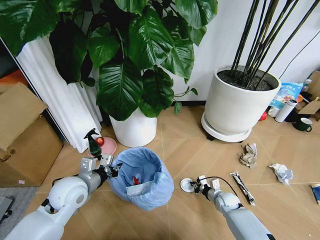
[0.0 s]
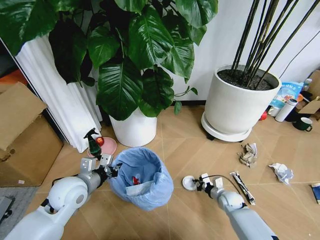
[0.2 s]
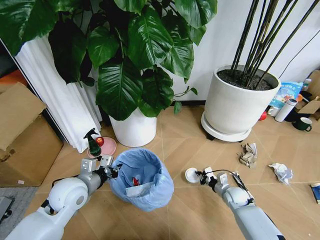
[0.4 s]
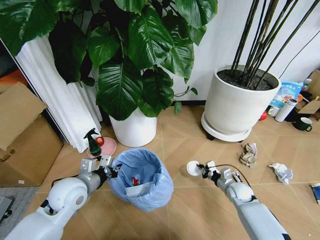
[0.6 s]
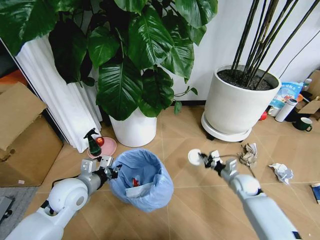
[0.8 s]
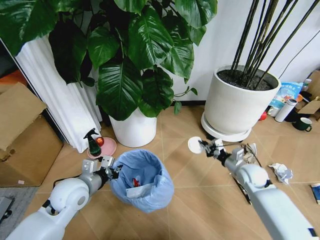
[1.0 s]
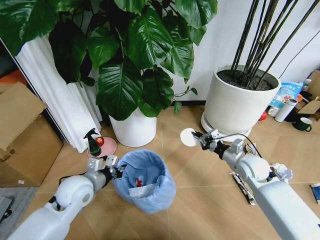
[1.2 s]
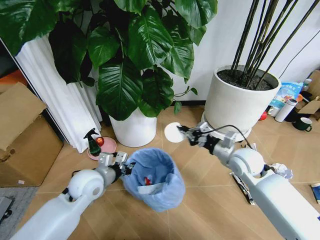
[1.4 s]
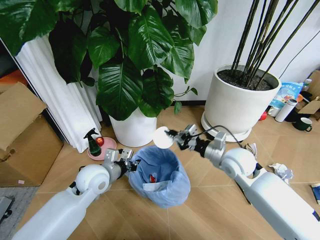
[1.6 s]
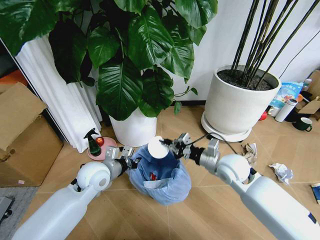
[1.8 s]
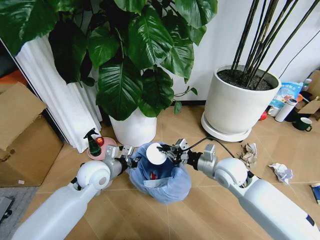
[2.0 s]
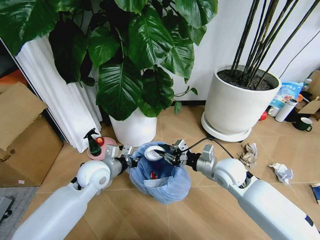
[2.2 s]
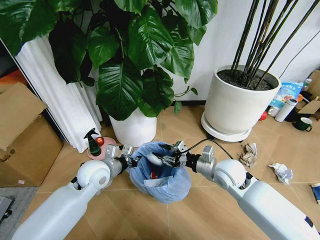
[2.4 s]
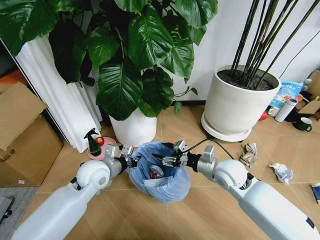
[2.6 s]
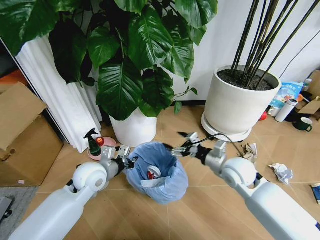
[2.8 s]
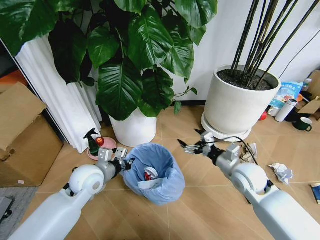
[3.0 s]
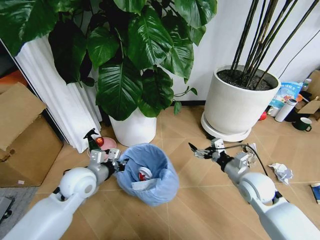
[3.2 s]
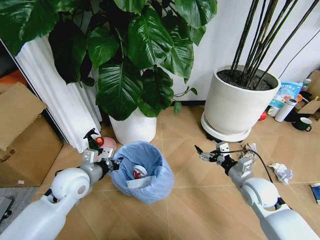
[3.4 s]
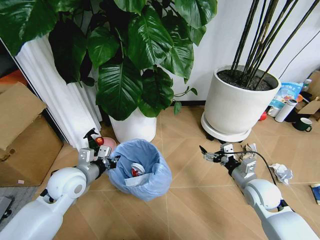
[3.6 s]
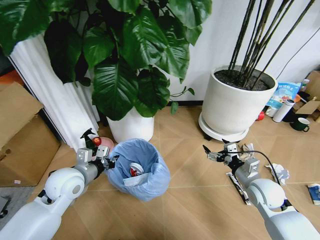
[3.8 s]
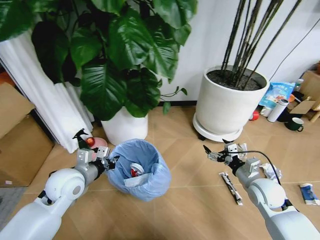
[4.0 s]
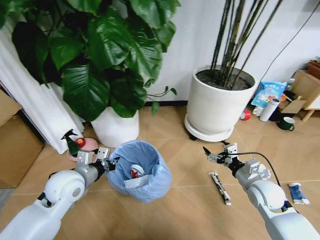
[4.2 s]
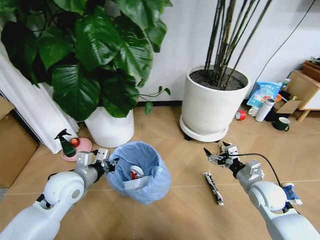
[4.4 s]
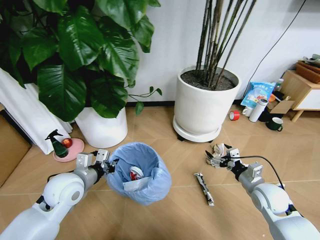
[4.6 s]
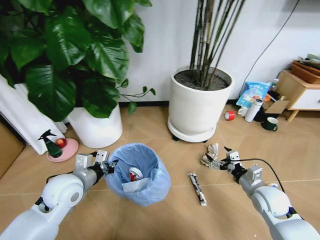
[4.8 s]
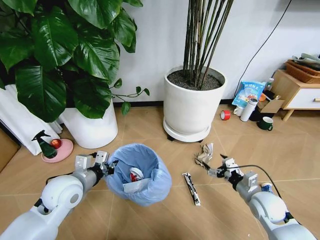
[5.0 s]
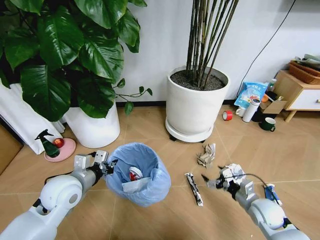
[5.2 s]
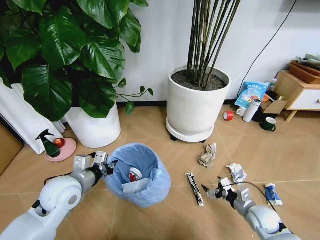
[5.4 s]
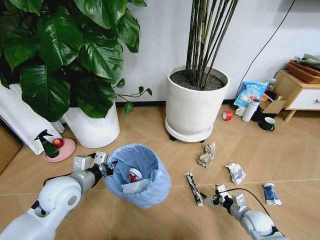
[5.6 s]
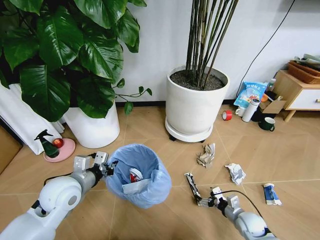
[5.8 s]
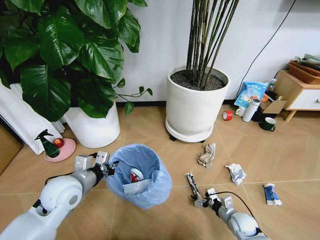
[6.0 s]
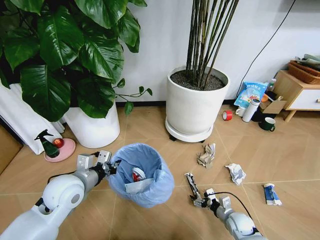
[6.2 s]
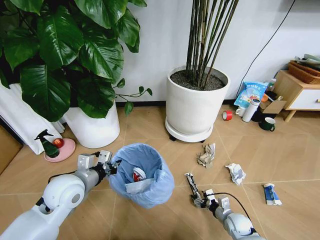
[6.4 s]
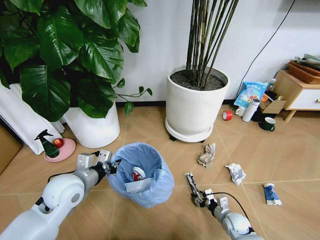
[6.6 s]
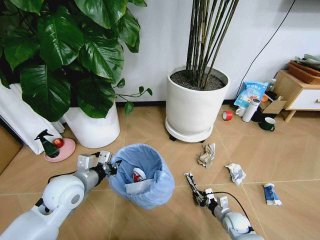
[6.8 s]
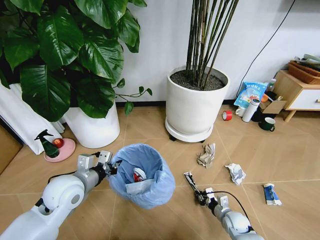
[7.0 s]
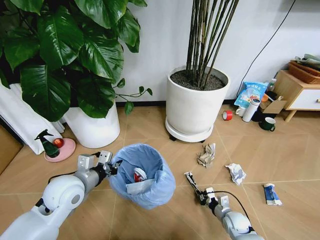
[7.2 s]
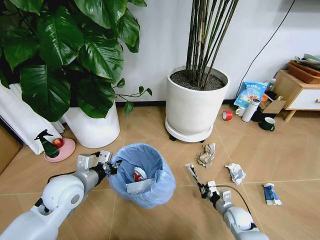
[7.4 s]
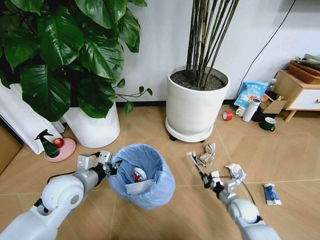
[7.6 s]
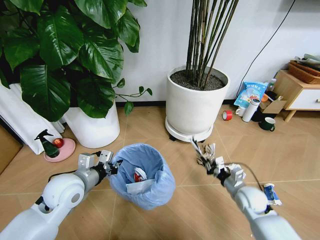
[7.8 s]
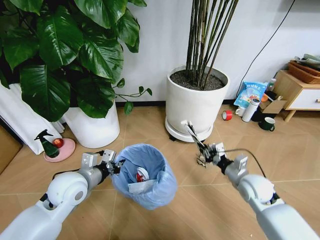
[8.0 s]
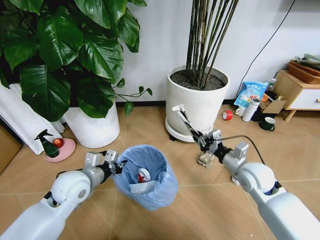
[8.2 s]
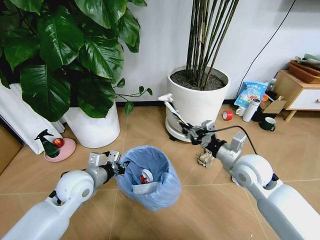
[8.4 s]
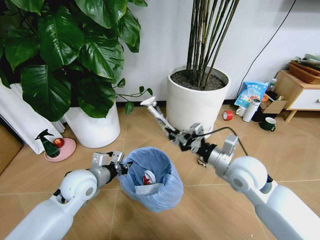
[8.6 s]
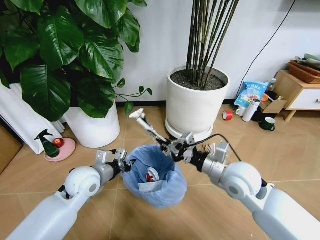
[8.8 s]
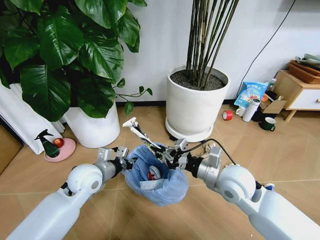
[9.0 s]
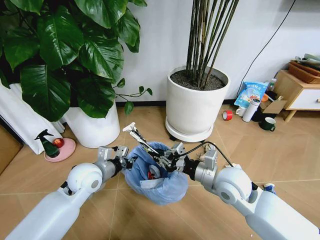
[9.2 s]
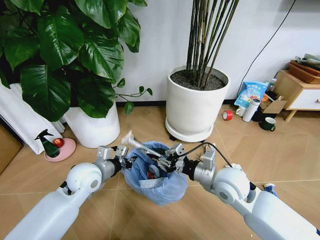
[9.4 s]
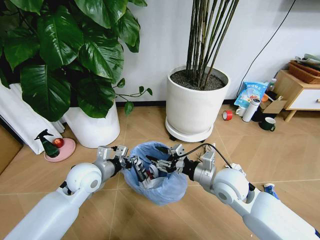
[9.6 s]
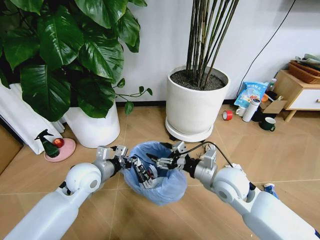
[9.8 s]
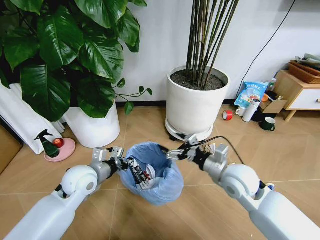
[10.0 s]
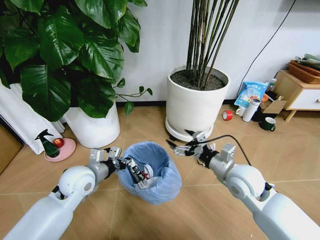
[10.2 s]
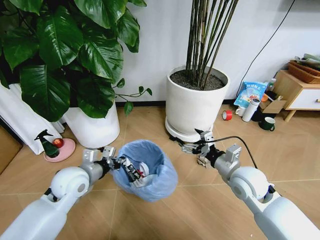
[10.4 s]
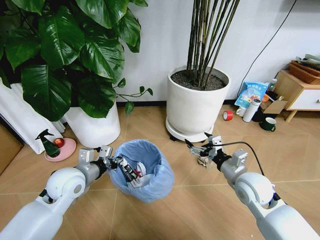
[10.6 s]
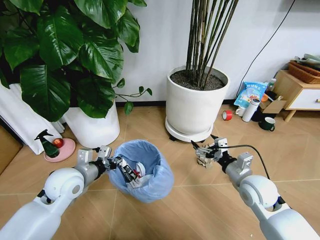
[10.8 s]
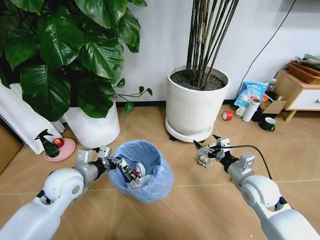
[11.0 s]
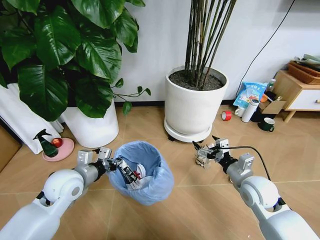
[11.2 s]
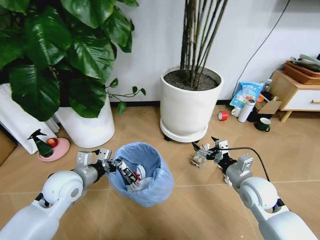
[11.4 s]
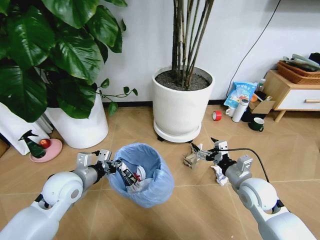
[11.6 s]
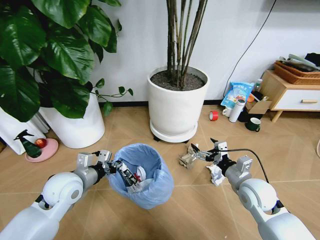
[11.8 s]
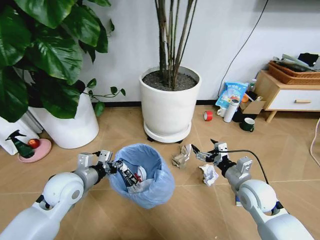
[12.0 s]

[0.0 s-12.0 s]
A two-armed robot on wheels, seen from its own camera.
Task of the whole recording: Pick up the trash bin and place the garbage on the floor into it.
0.0 to 1.6 s: The left gripper heads to the right, covering roughly 5 cm. Meanwhile the right gripper shifts approximately 30 cm upward.
1.6 to 3.0 s: The right gripper moves approximately 5 cm, and opens its fingers.
3.0 to 4.4 s: The right gripper is displaced to the right and downward by about 10 cm. The left gripper shifts by approximately 5 cm.
4.4 to 6.0 s: The right gripper travels downward by some 20 cm.
6.0 to 7.6 s: The right gripper moves about 5 cm, and closes.
7.6 to 9.0 s: The left gripper changes place by roughly 5 cm; the right gripper travels upward and to the left by approximately 25 cm.
9.0 to 10.4 s: The right gripper moves to the right, some 5 cm, and opens up.
10.4 to 12.0 s: The right gripper changes place by approximately 5 cm.

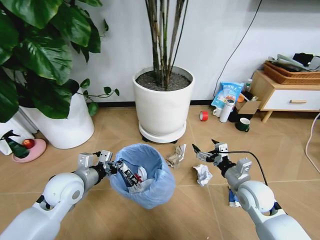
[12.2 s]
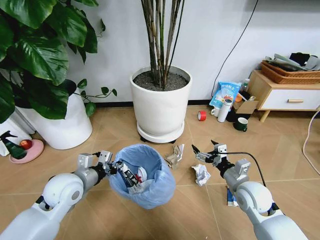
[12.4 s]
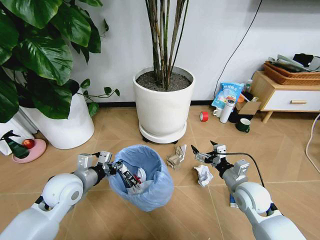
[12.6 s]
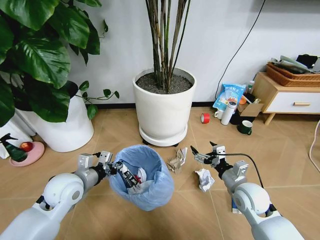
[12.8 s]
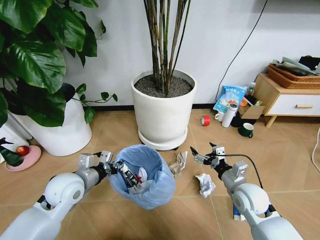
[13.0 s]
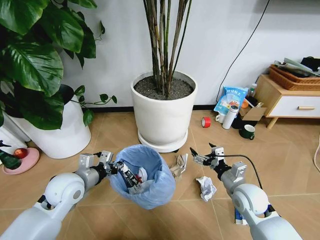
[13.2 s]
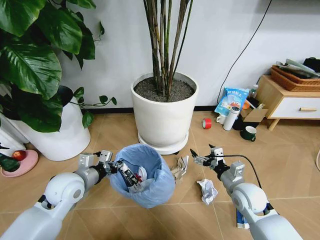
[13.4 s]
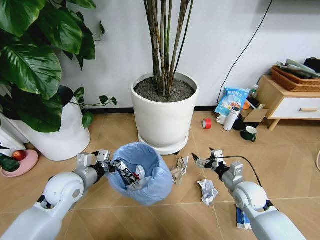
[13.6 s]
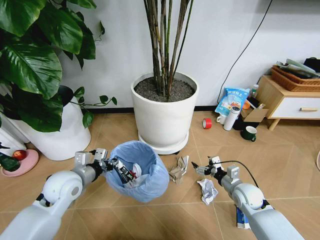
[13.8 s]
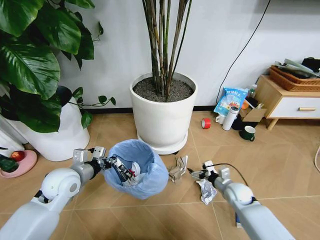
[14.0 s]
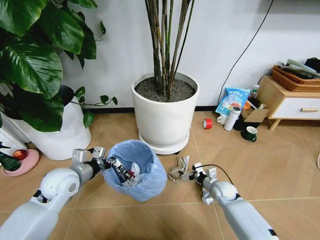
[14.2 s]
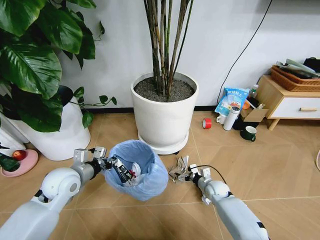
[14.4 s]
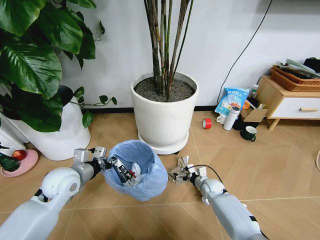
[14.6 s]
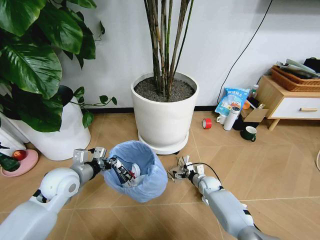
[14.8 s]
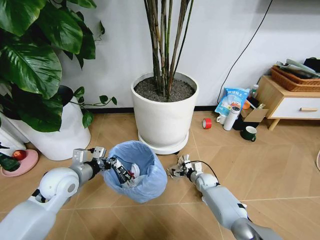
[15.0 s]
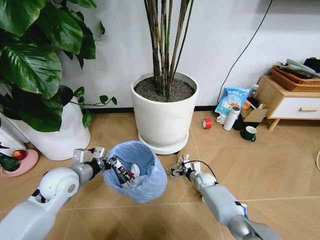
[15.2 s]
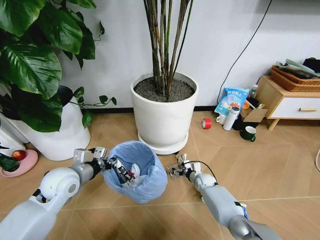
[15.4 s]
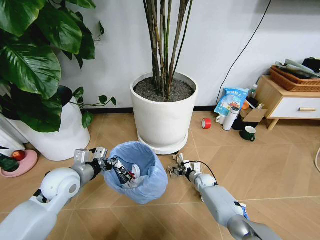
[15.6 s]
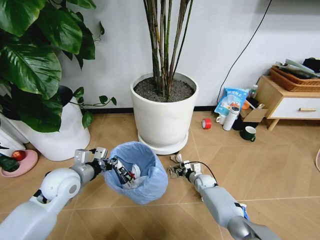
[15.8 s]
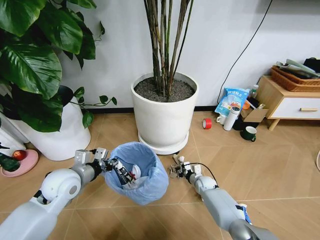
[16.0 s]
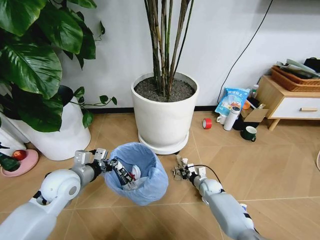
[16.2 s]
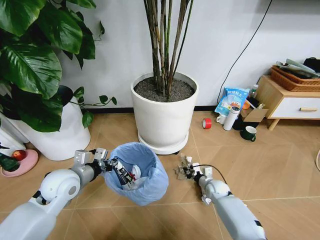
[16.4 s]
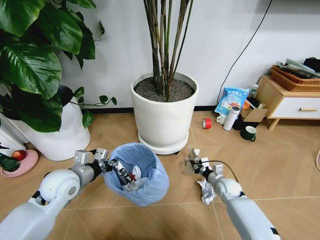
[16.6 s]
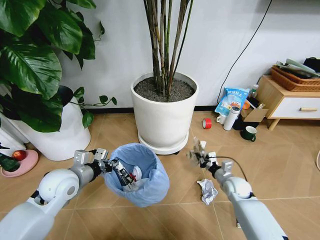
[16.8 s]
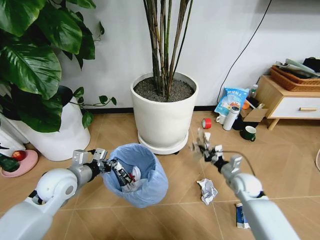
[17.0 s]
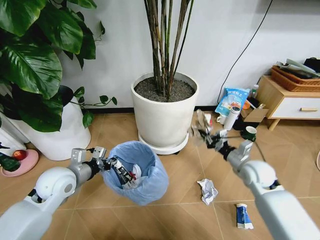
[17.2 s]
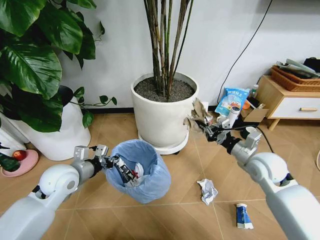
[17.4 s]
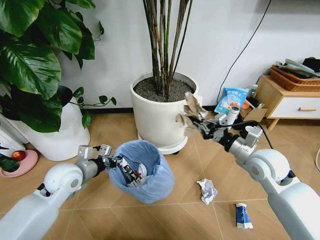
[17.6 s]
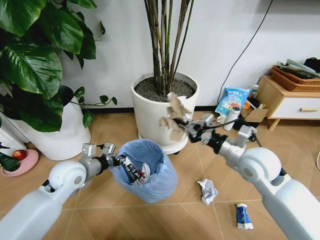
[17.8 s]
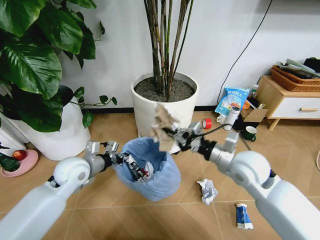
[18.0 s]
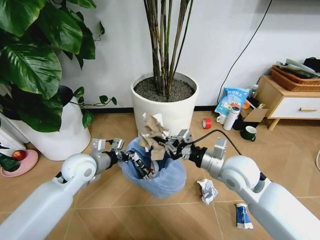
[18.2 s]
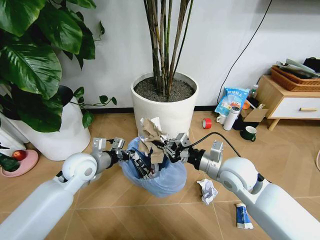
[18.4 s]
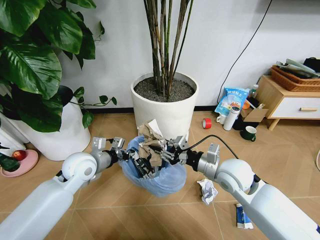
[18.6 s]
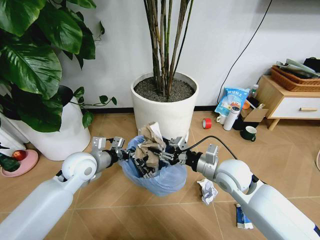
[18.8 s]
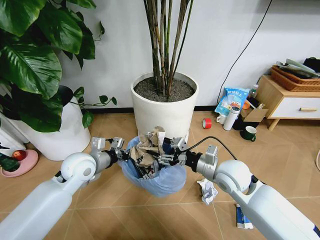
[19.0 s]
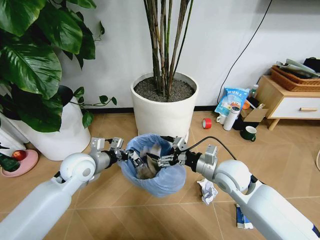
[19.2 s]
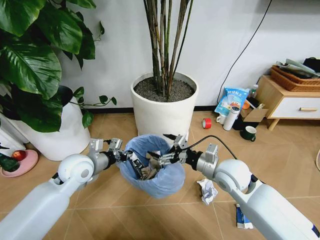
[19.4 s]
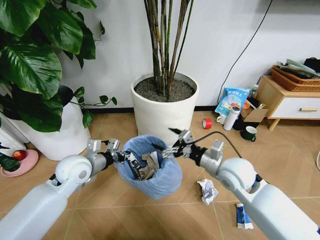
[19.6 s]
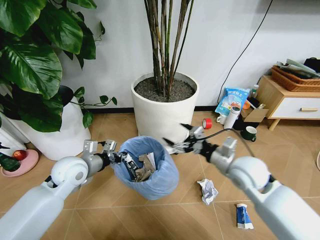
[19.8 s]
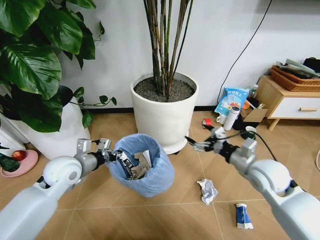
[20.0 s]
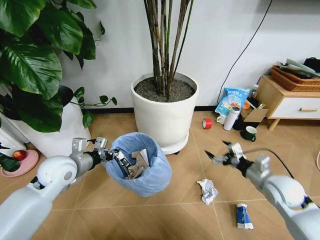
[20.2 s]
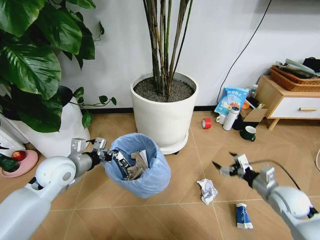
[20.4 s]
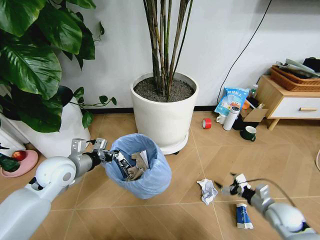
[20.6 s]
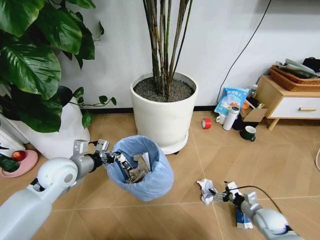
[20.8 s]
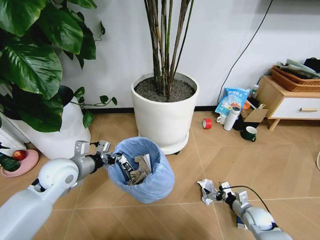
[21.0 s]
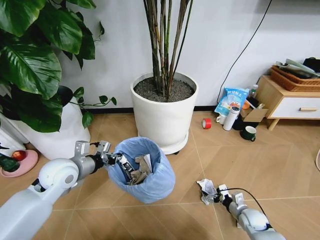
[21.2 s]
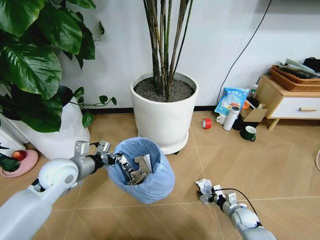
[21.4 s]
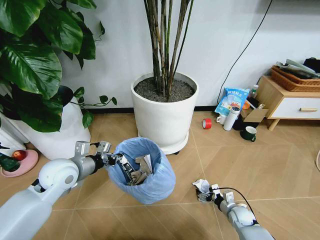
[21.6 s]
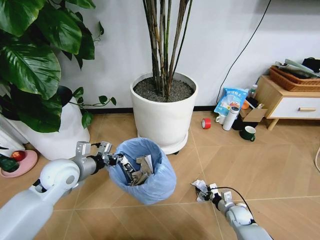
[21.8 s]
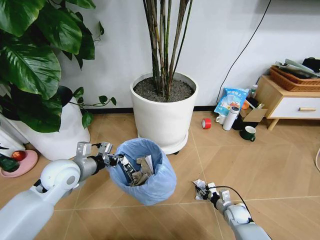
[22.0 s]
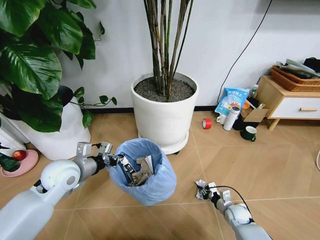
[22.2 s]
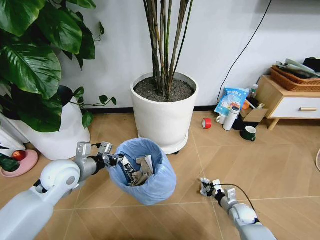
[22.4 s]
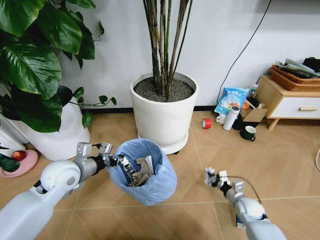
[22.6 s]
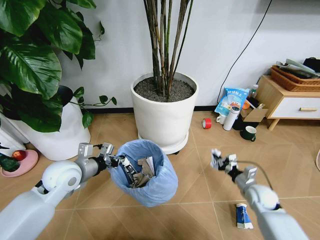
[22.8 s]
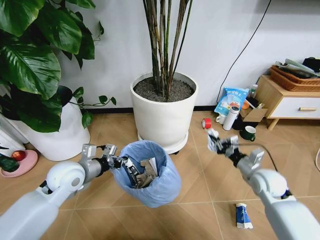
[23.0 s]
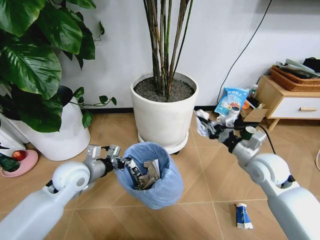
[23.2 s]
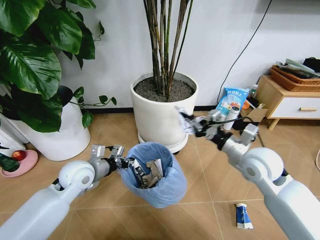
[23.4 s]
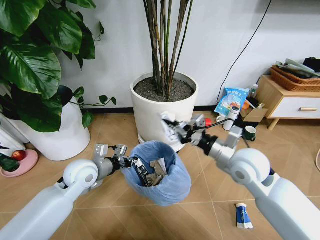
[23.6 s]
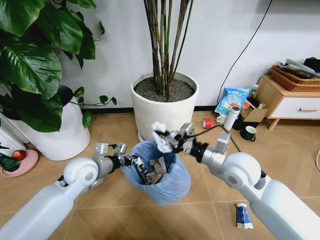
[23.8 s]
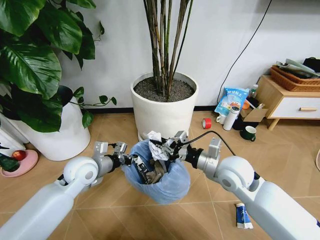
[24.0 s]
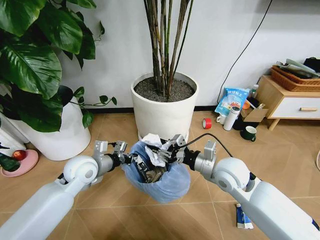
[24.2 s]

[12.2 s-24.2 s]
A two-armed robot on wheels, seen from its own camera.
Task of the whole recording: Pick up the trash bin and place the garbage on the floor into it.
12.2 to 13.8 s: The right gripper travels downward by roughly 10 cm.
13.8 to 15.2 s: The right gripper goes roughly 20 cm downward, forward and to the left.
15.2 to 16.6 s: The right gripper goes about 10 cm to the right, backward and upward, and closes its fingers.
16.6 to 18.2 s: The left gripper moves forward, about 5 cm. The right gripper travels upward by some 30 cm.
18.2 to 19.8 s: The right gripper opens its fingers.
19.8 to 21.2 s: The right gripper moves downward, roughly 30 cm.
21.2 to 22.6 s: The right gripper closes up.
22.6 to 24.2 s: The right gripper is displaced upward and to the left by about 30 cm. Meanwhile the left gripper moves roughly 5 cm.
